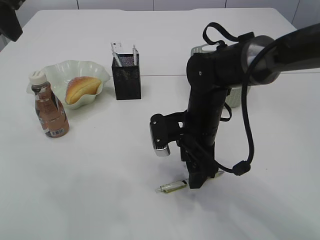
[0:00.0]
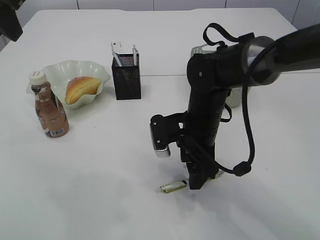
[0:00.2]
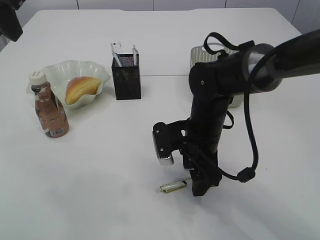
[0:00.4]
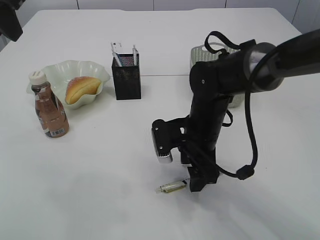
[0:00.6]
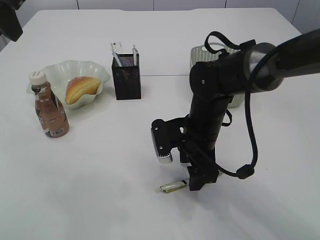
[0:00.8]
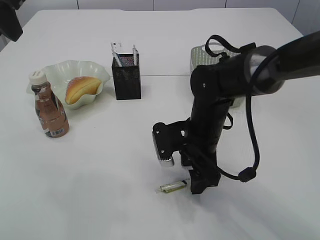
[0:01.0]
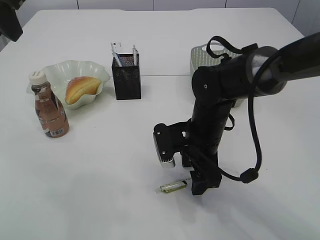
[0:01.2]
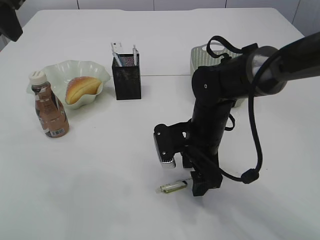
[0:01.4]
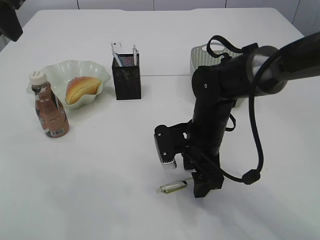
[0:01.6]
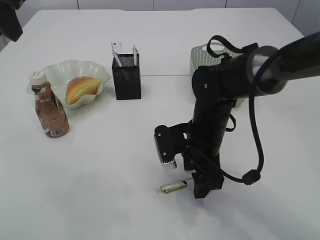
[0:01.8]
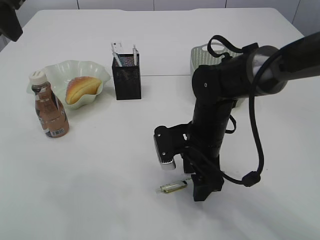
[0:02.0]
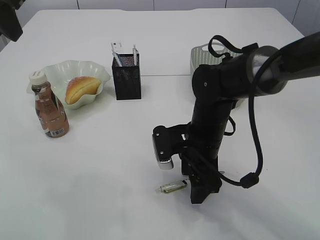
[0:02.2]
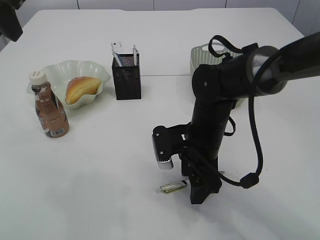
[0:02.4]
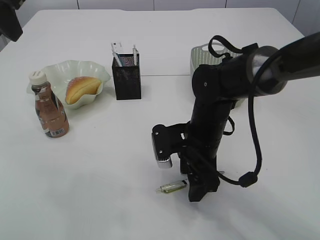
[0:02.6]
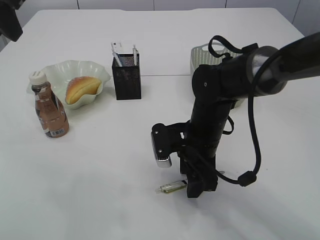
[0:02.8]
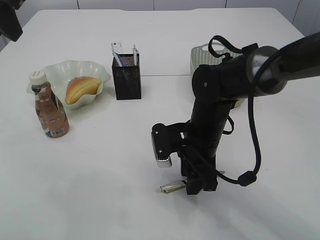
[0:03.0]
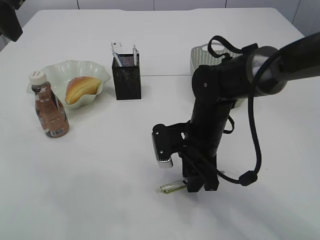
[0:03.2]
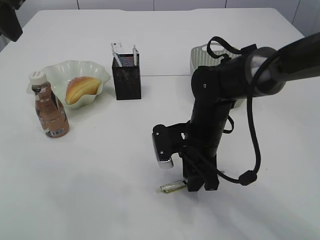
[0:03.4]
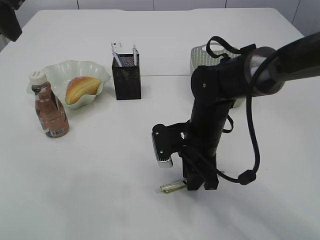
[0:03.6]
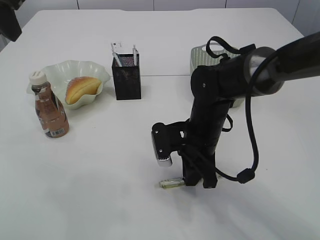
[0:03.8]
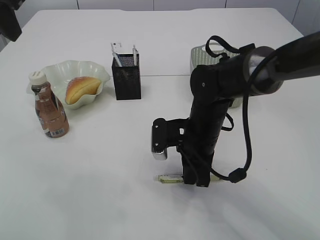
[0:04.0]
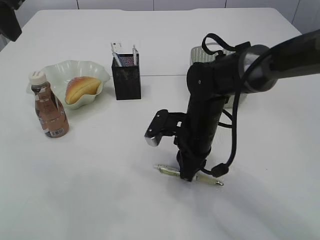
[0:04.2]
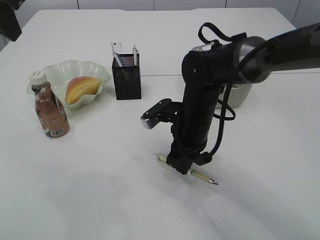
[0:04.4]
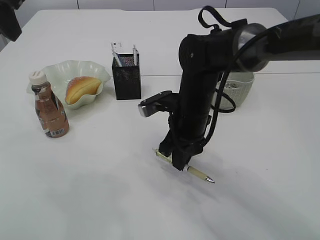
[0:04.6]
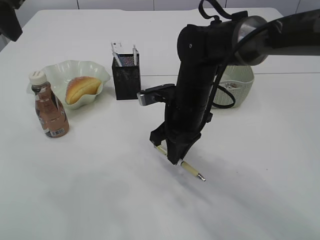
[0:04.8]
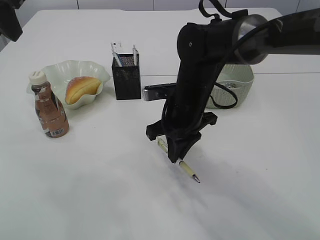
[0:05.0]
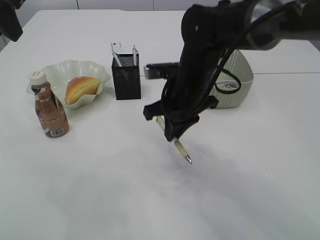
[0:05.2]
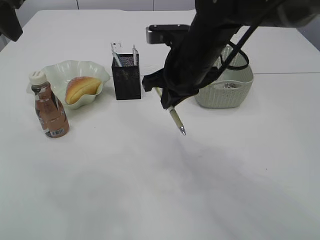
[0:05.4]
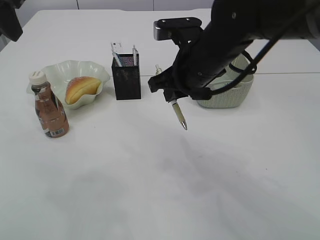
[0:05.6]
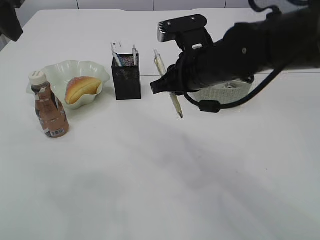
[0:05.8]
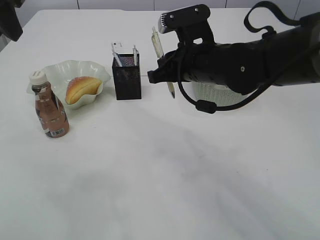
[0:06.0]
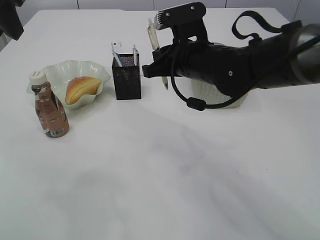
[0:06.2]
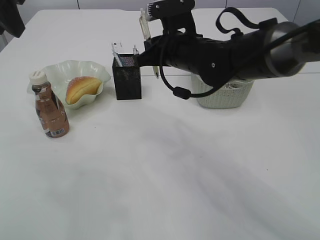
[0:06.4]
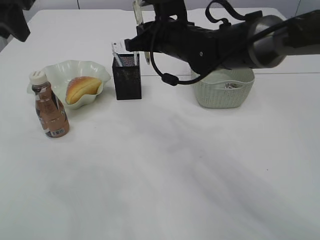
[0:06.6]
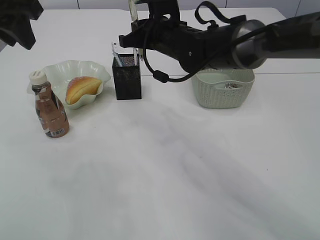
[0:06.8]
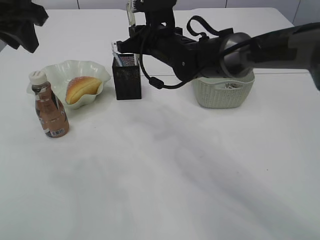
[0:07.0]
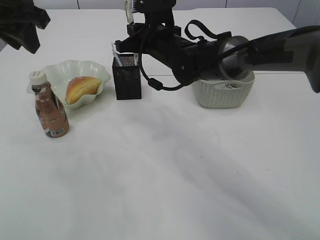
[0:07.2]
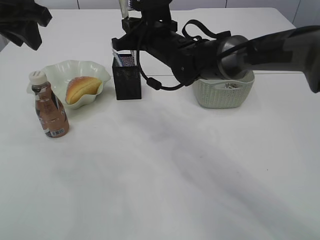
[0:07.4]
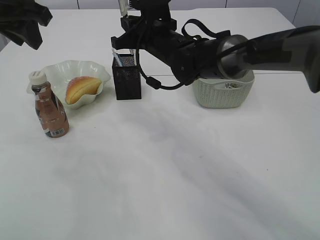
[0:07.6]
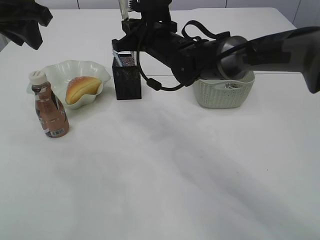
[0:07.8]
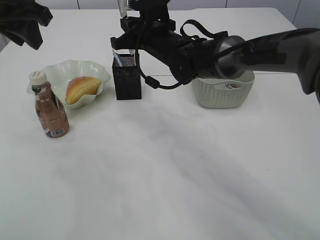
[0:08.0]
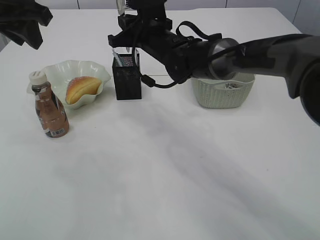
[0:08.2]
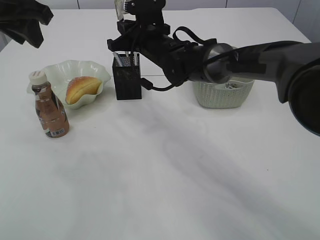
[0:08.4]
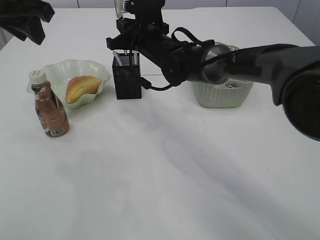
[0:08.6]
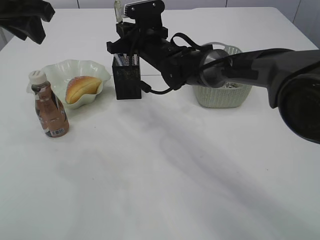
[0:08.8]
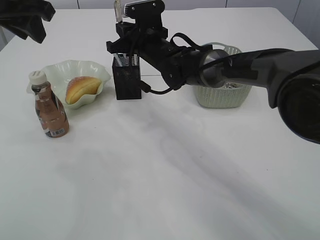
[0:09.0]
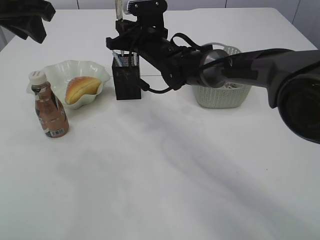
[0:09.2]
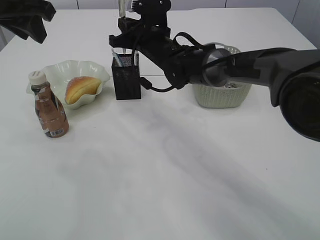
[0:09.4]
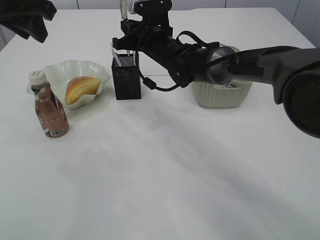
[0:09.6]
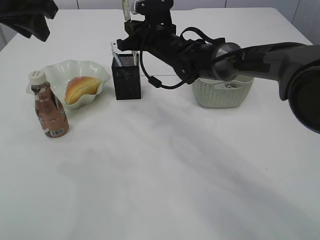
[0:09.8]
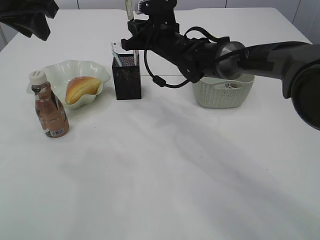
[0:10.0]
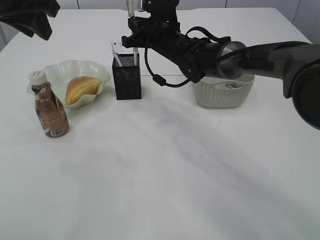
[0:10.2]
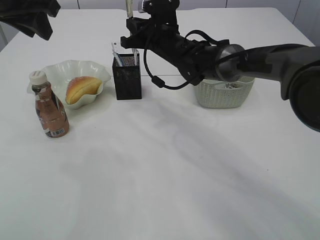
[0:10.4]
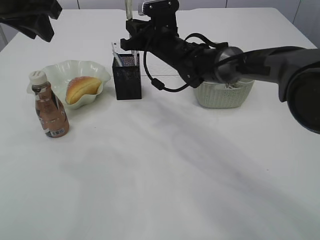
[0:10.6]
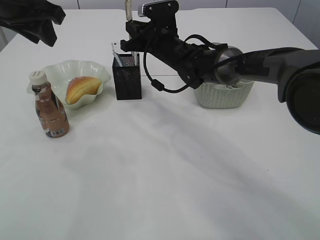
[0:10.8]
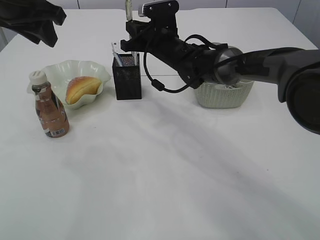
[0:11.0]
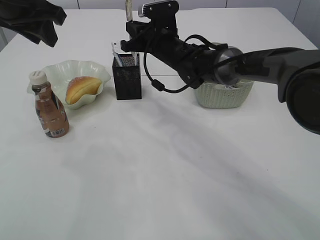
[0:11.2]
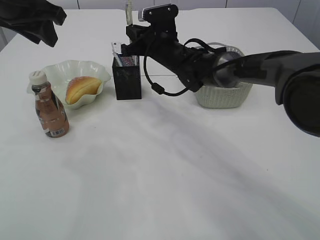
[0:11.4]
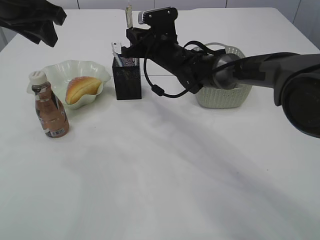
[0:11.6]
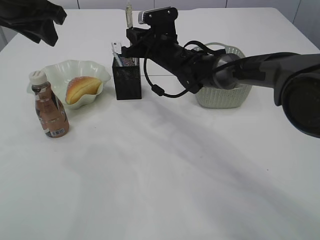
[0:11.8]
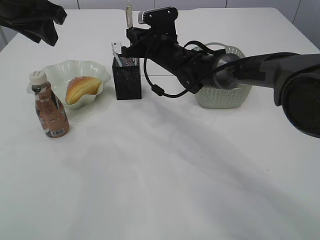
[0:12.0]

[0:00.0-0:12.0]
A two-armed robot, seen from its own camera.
Step, 0:00.0 to 0:05.2: Pick up the pen with right arm.
0:00.0 to 0:01.6: The grippers move only a little.
0:01.6 to 0:03.0: The right gripper closes its fingers.
0:03.0 to 0:04.4: The right gripper closes up.
0:04.4 to 0:06.0: The right gripper shifts about 10 cm upward.
0:06.0 to 0:07.6: The right gripper travels forward and to the left by about 10 cm. Meanwhile the left gripper ends up some 5 cm from where it was.
0:07.6 to 0:10.4: The grippers stay close to where they were, moving slightly.
0:10.4 to 0:12.0: There are only small adjustments of the grippers.

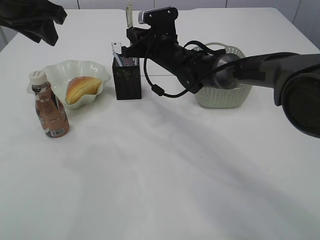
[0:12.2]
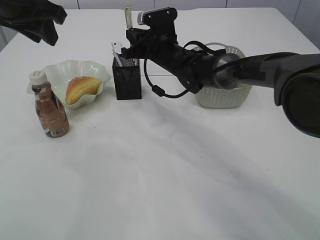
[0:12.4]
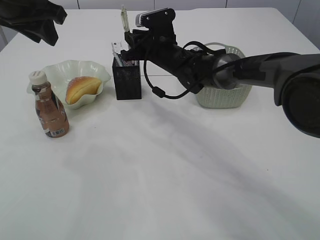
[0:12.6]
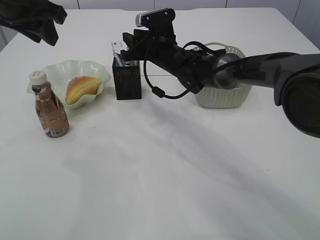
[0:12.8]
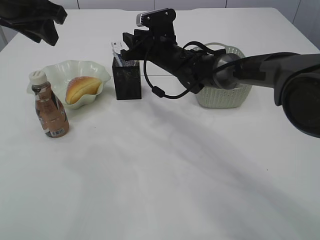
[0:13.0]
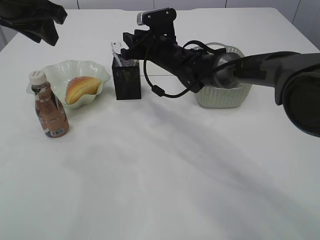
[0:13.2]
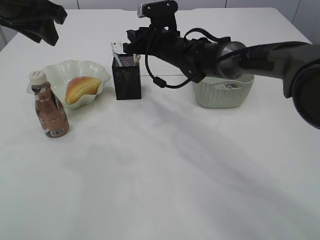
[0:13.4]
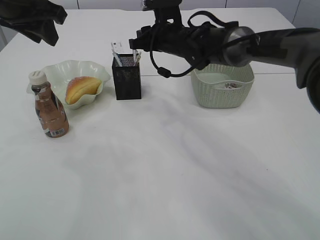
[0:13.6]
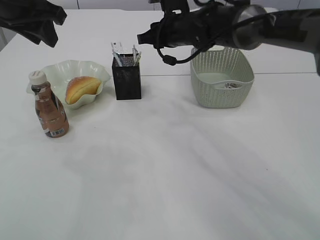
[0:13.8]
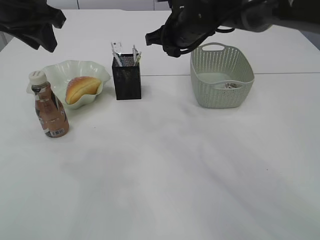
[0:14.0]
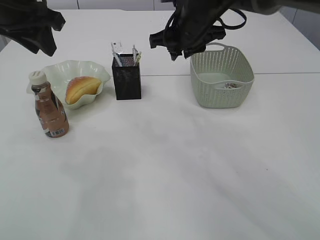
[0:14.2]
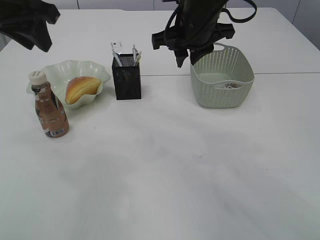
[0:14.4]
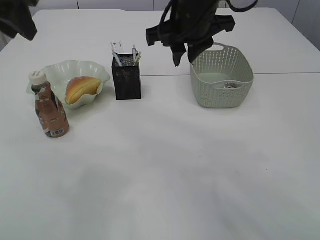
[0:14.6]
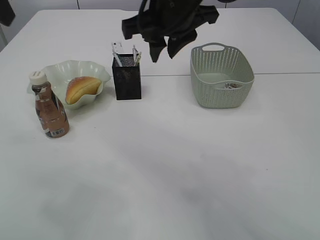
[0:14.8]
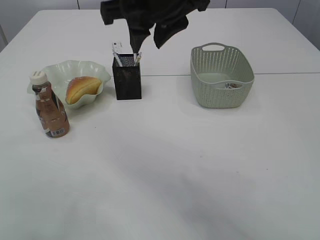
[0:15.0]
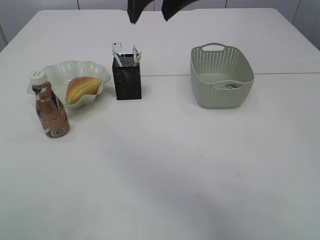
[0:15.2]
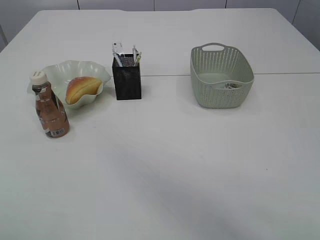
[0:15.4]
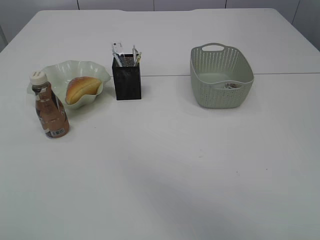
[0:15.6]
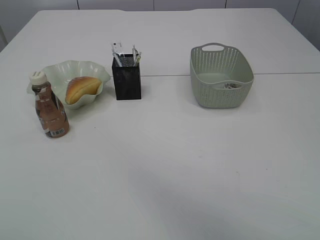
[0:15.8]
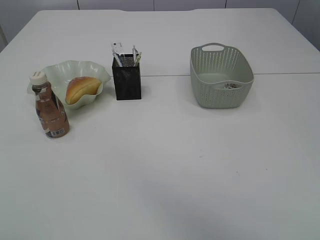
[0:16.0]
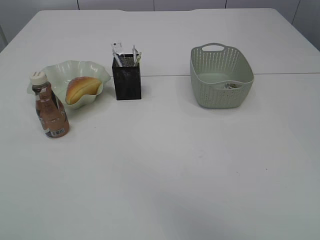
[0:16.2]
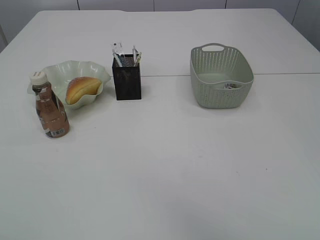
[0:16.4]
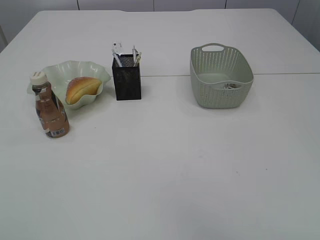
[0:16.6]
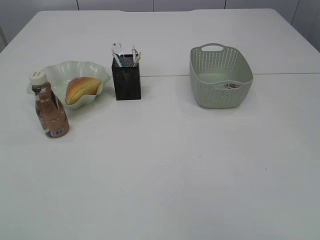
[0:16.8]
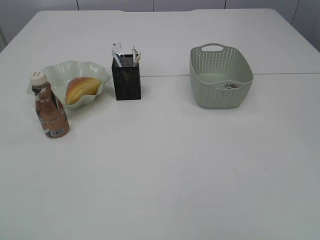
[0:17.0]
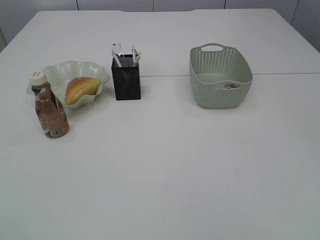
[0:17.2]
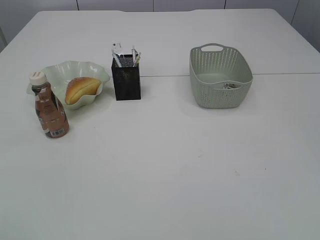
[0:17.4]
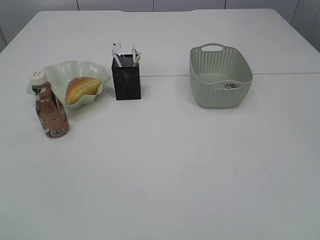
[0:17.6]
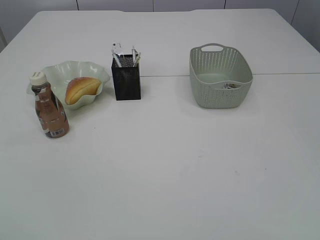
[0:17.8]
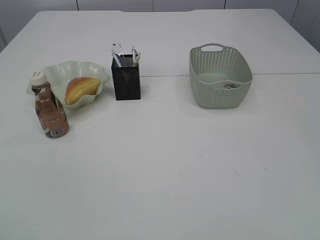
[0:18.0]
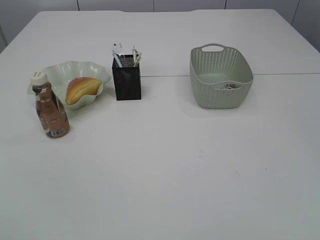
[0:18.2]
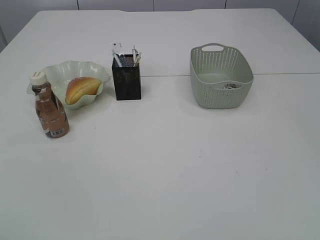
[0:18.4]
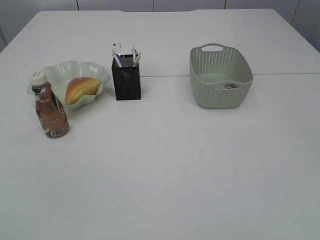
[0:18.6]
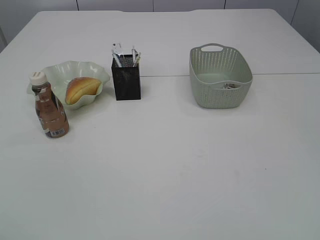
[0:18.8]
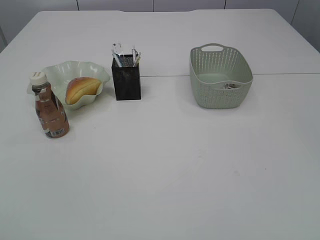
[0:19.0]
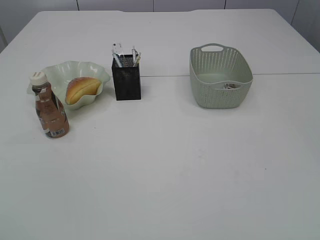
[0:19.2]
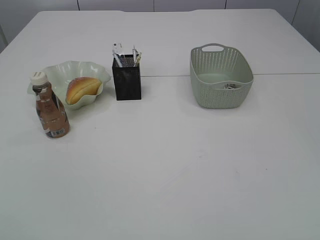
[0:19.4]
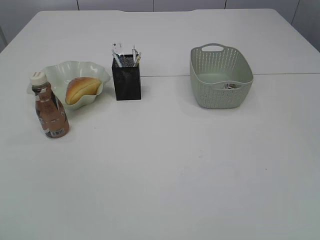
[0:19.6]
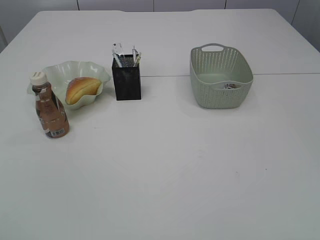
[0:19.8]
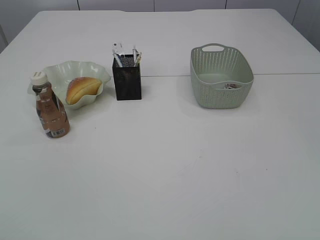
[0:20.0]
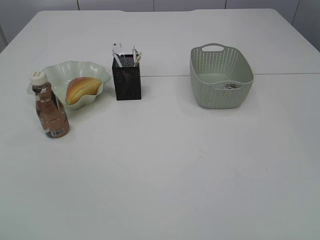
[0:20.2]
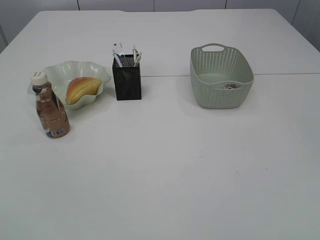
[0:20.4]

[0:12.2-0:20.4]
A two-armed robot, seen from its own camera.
0:12.2 to 0:13.8: The right gripper moves upward, about 5 cm, and opens its fingers.
0:13.8 to 0:15.4: The right gripper heads upward and backward, covering some 35 cm, and opens up; the left gripper goes about 25 cm backward and upward.
0:15.4 to 0:17.2: The right gripper travels backward, to the right and downward by roughly 40 cm; the left gripper shifts about 25 cm backward and downward.
